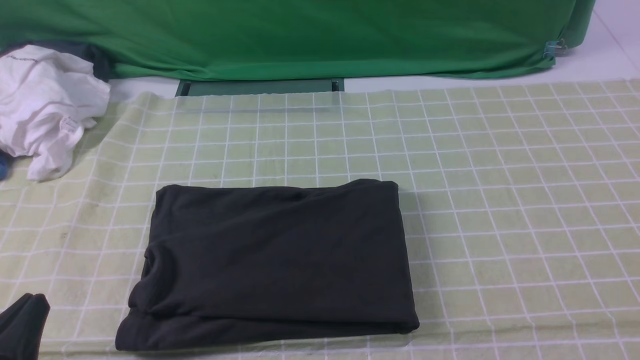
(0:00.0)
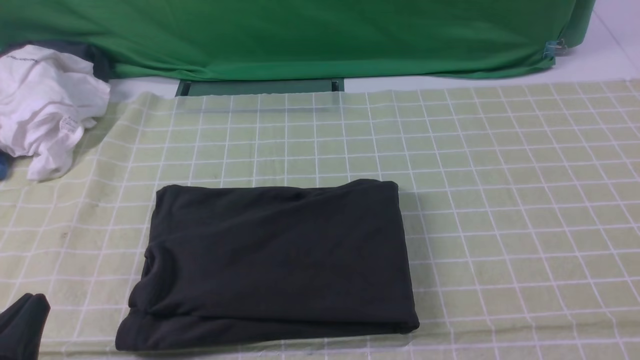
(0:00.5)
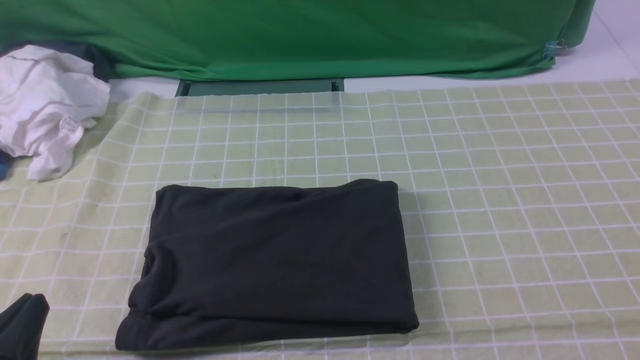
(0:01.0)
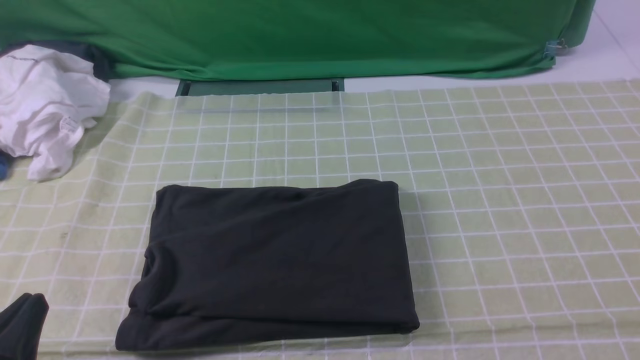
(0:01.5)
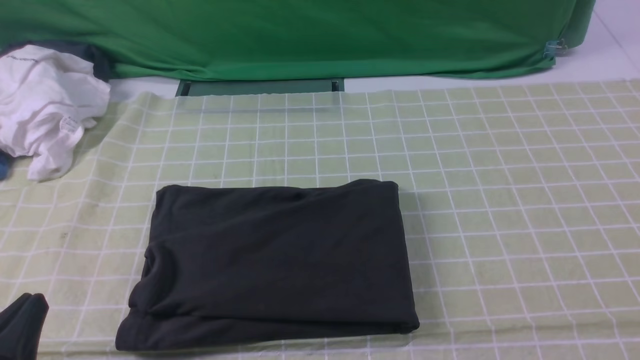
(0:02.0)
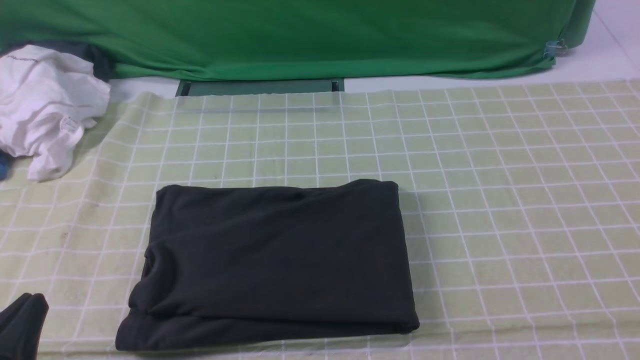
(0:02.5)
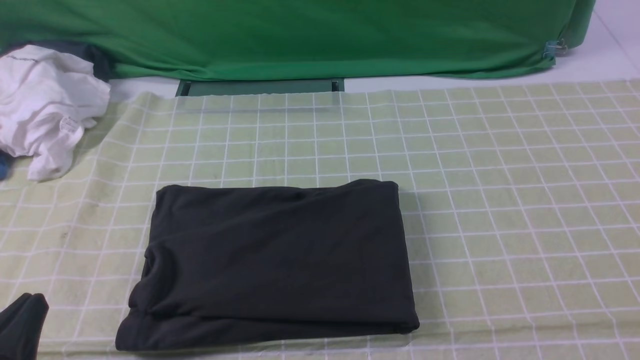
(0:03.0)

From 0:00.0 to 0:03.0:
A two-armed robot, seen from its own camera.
From 0:01.5 to 0:03.0: Both grippers stay about where they are.
